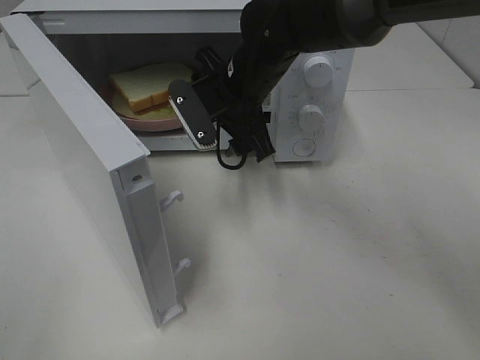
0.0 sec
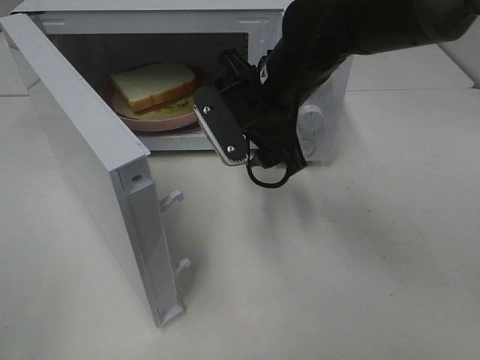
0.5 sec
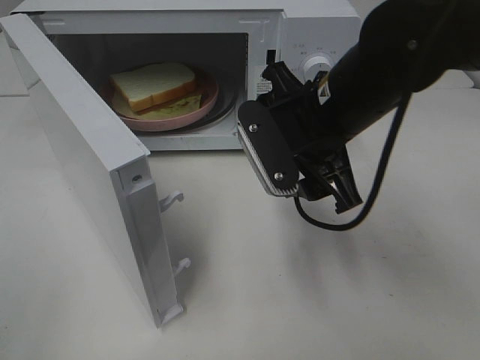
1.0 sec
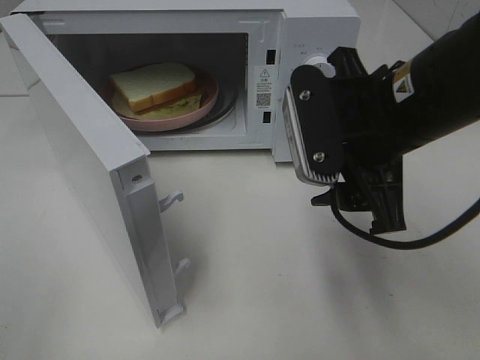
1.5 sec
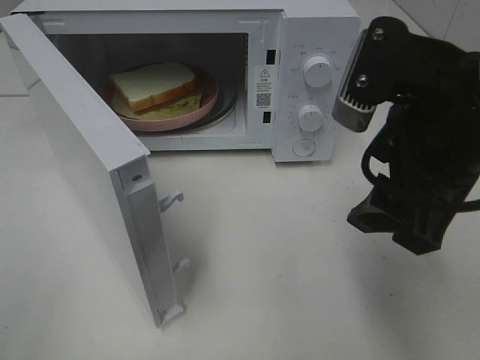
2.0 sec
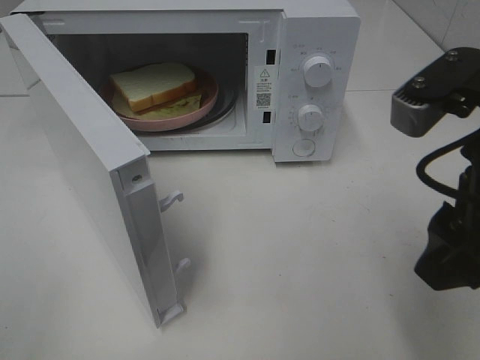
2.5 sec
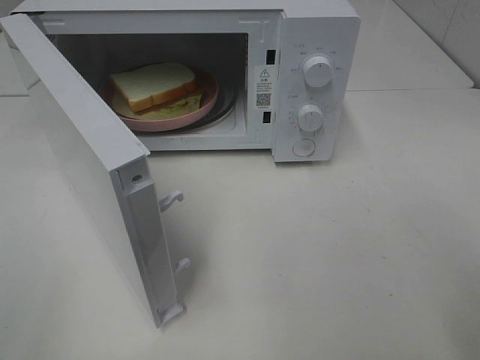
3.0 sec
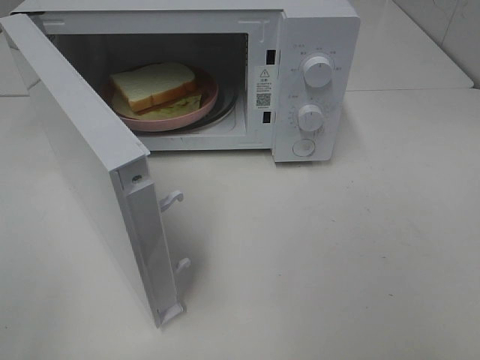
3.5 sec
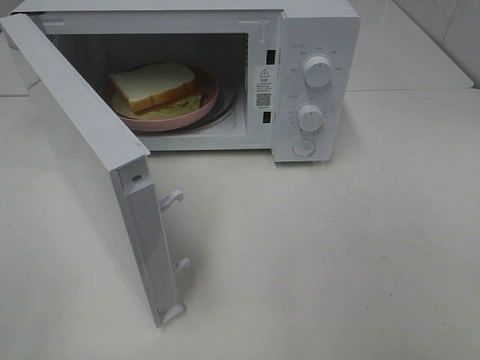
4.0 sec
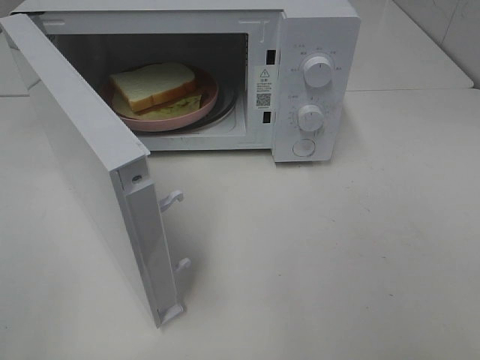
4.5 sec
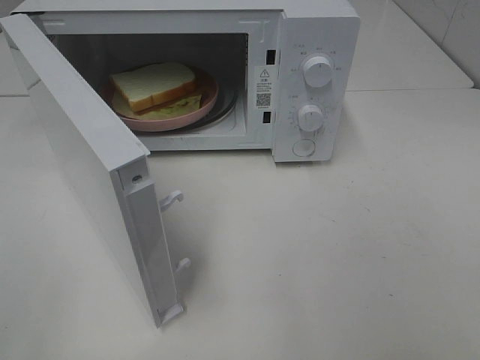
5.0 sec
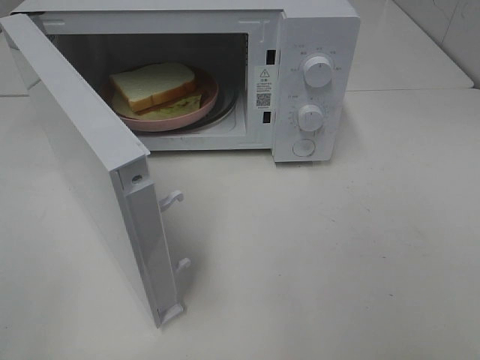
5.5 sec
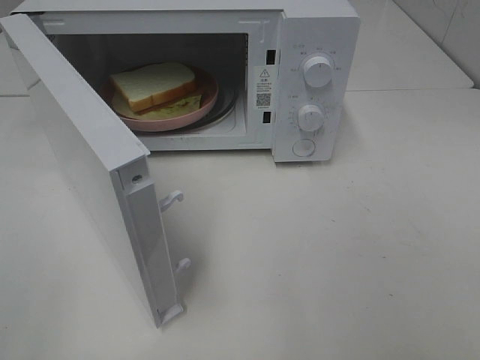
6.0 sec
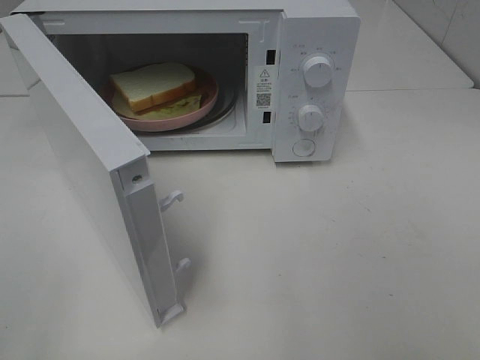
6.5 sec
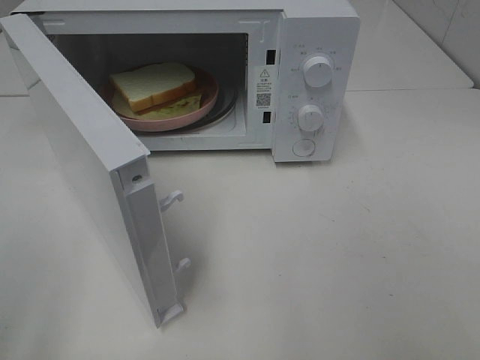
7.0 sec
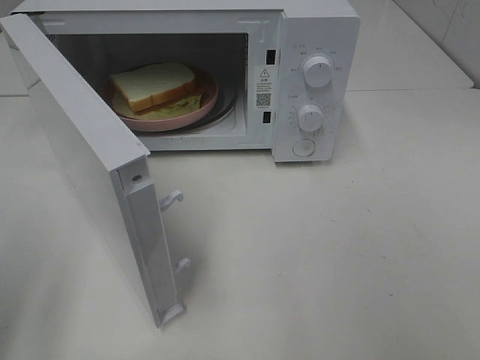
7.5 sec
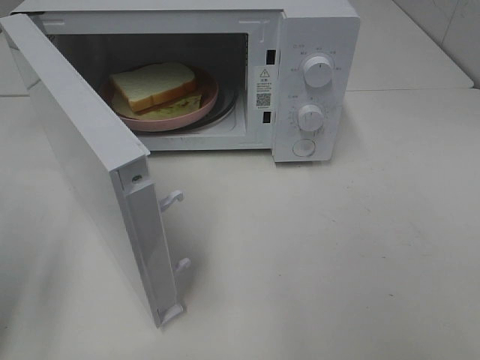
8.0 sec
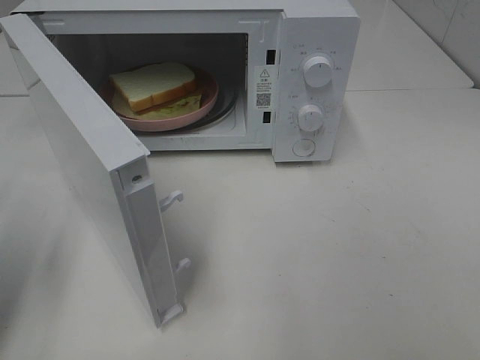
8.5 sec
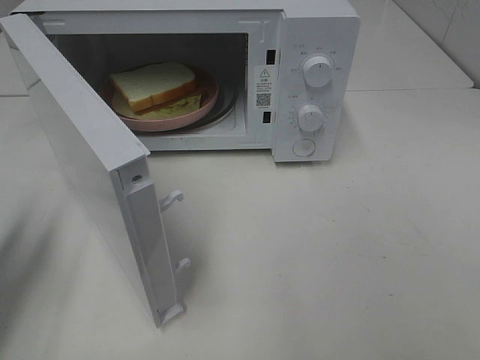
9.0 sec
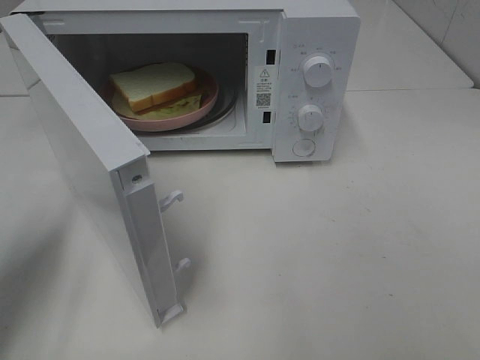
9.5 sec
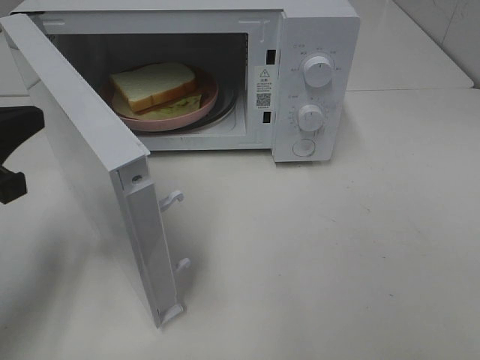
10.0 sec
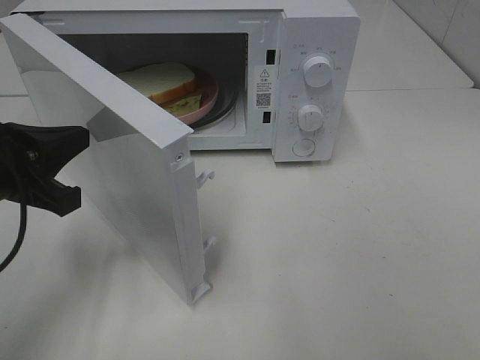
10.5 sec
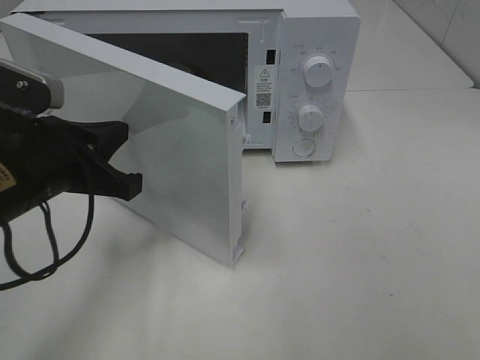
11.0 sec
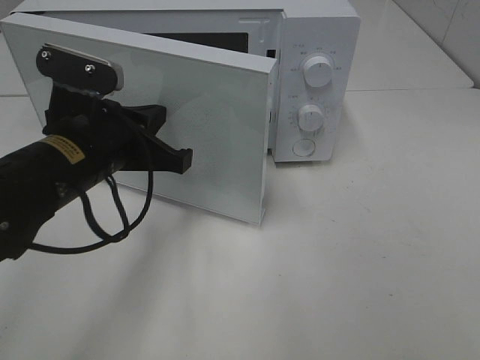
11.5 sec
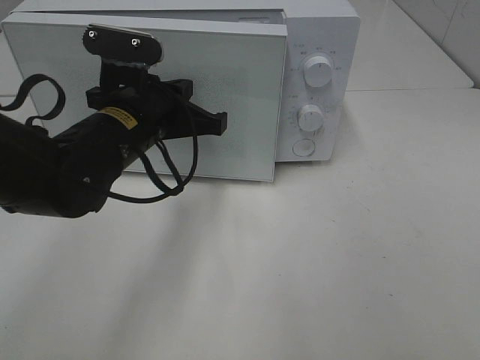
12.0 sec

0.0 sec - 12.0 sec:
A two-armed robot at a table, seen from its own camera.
Task of the whole recording: Heat Sandwich.
0.0 sec - 2.0 sec: The right gripper moves backward, to the right and upward, about 25 cm.
2.0 sec - 4.0 sec: The right gripper is displaced backward and to the right by about 20 cm.
6.0 sec - 8.0 sec: The left gripper travels forward by roughly 15 cm.
8.0 sec - 10.0 sec: The left gripper moves forward and to the right, roughly 10 cm, and closes up.
10.0 sec - 12.0 sec: The left gripper is displaced to the right and forward by some 20 cm.

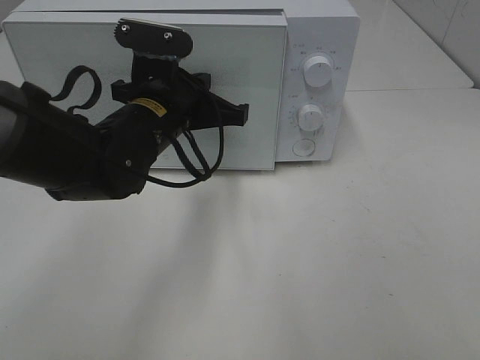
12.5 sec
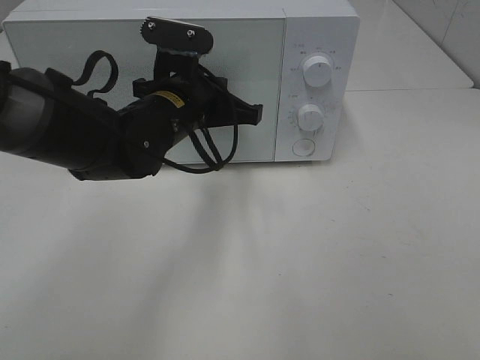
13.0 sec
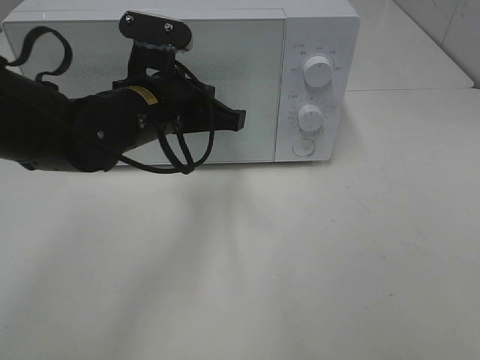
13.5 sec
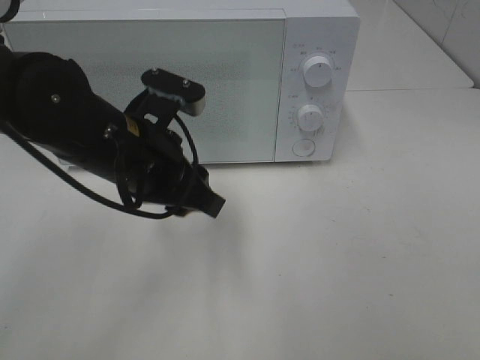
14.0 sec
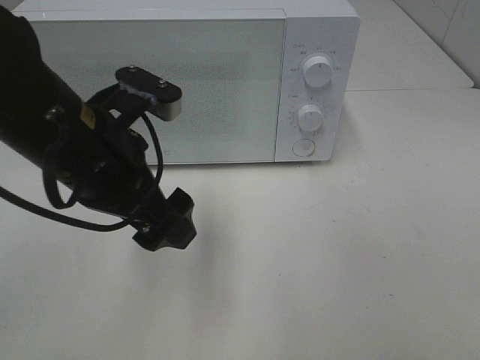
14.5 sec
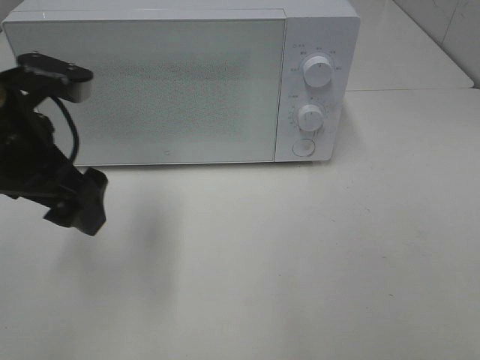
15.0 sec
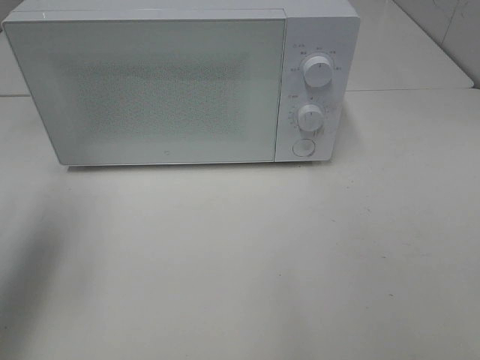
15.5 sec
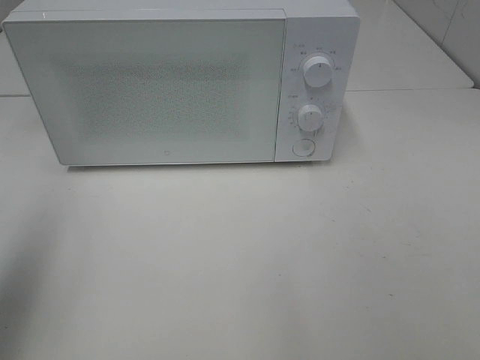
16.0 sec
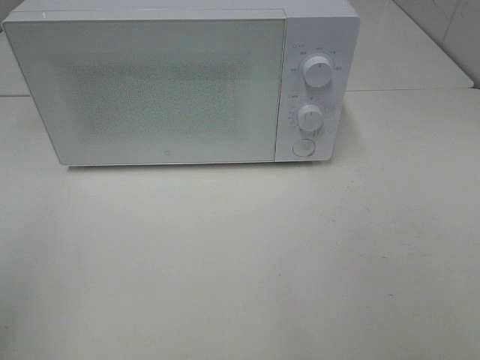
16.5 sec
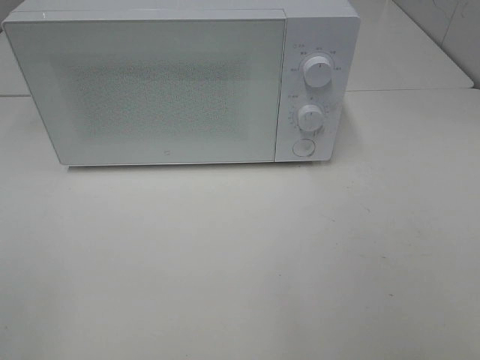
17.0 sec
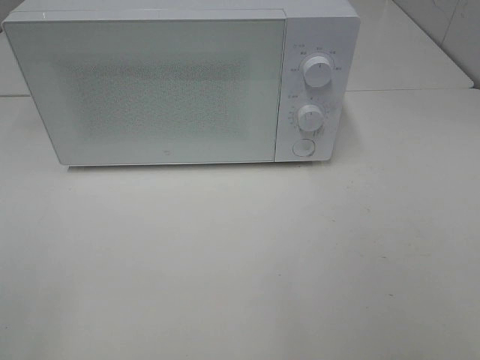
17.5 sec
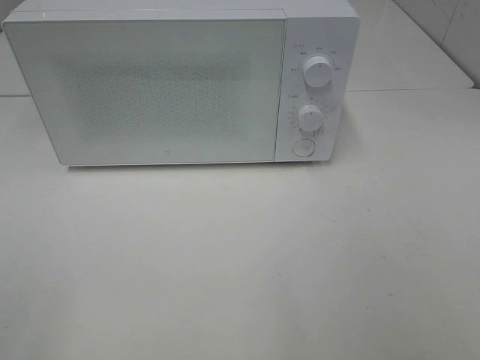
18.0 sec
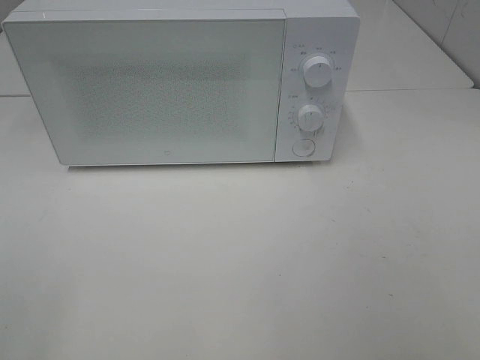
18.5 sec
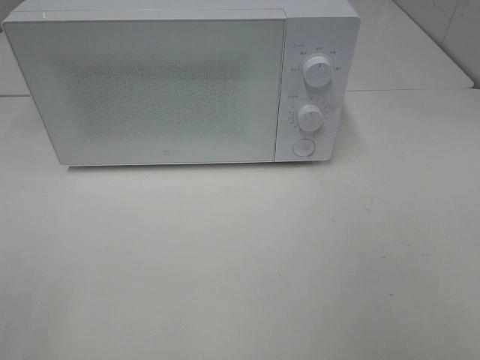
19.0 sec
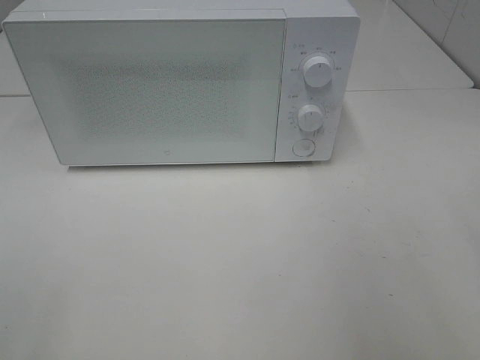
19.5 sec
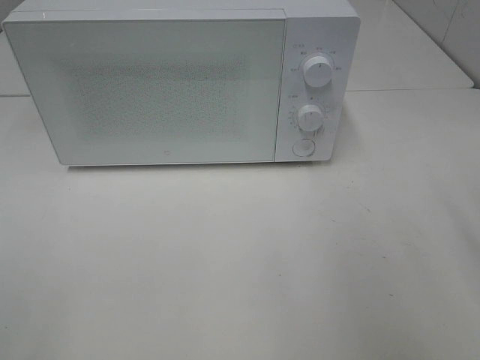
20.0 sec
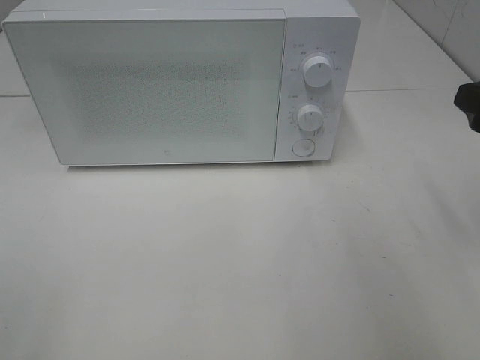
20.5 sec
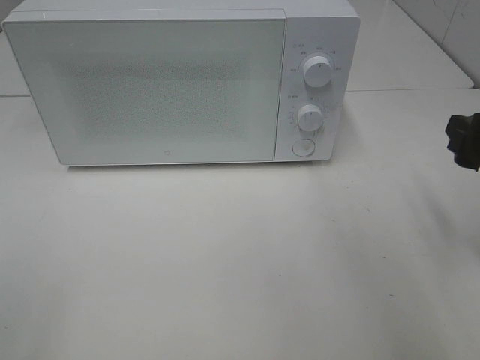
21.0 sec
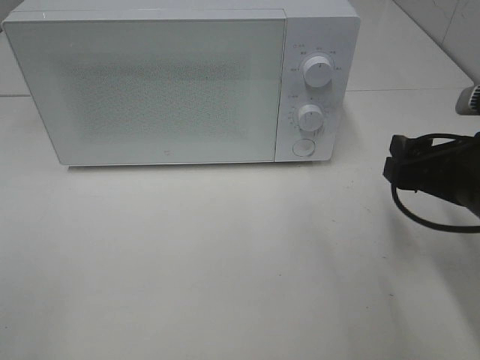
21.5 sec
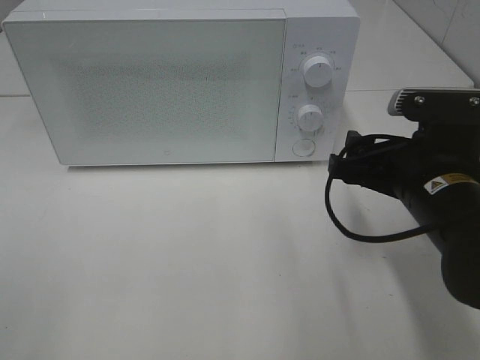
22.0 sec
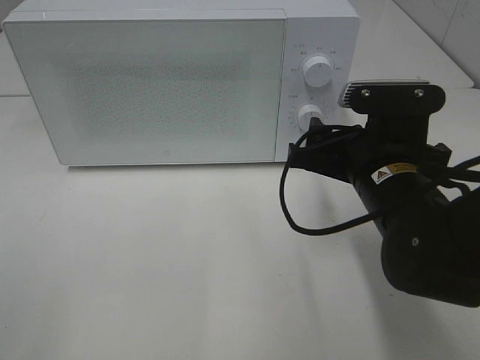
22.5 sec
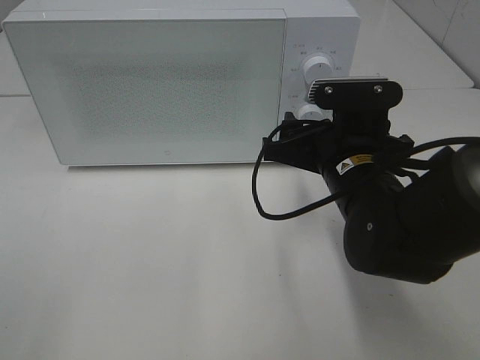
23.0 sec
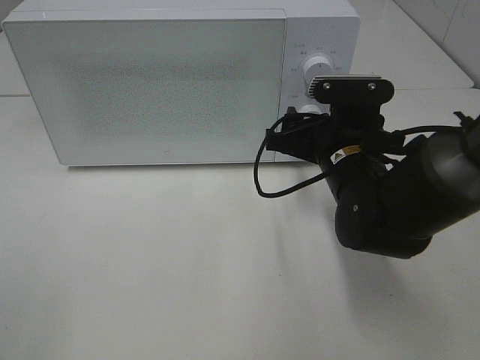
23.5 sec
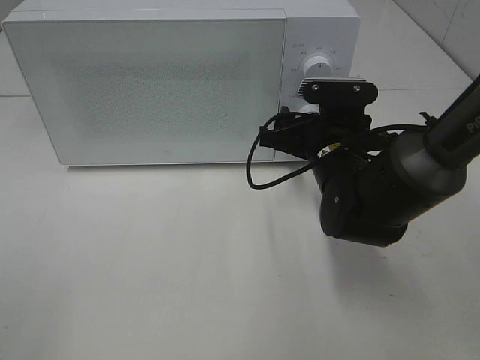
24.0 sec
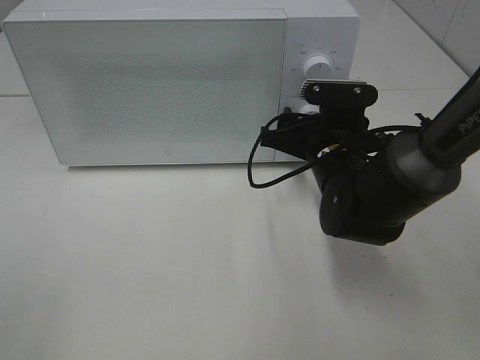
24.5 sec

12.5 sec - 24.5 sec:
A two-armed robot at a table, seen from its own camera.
Task of the whole recording: Heat Sandwich.
12.5 sec - 14.5 sec: The left gripper is displaced backward by approximately 10 cm, and opens up.
14.5 sec - 16.5 sec: The left gripper goes some 30 cm to the left, backward and upward.
20.5 sec - 22.5 sec: The right gripper shifts roughly 15 cm to the left and downward.
22.5 sec - 24.5 sec: The right gripper heads forward, covering approximately 10 cm.

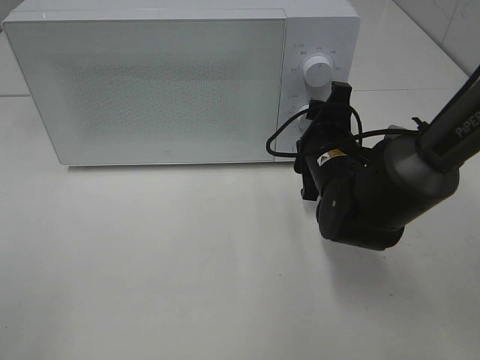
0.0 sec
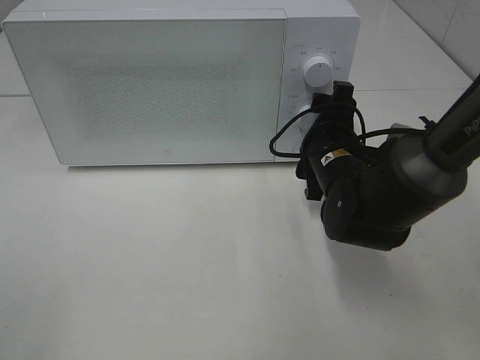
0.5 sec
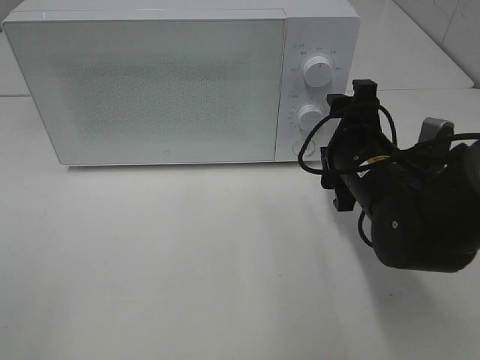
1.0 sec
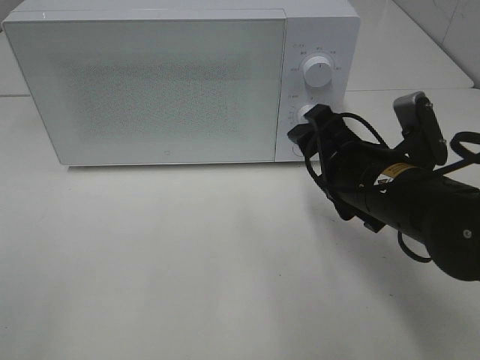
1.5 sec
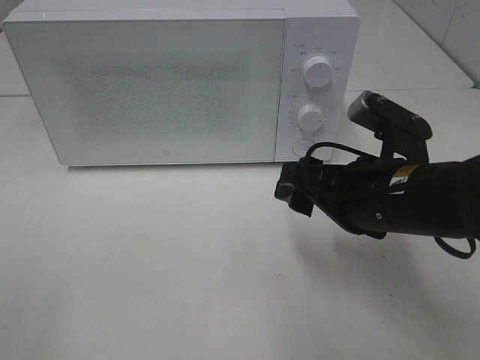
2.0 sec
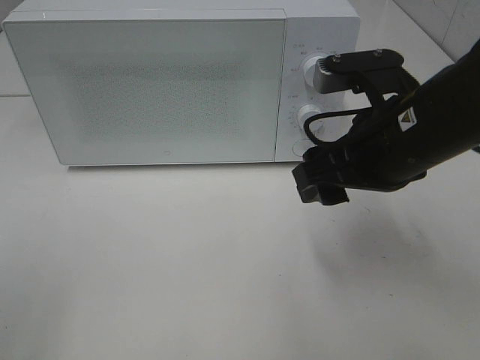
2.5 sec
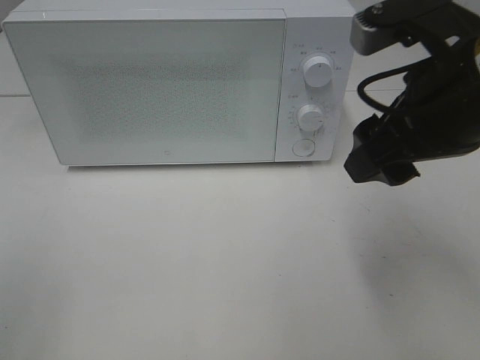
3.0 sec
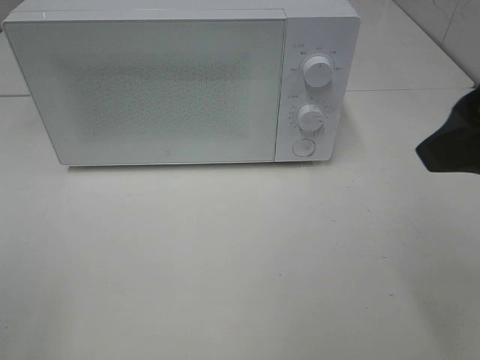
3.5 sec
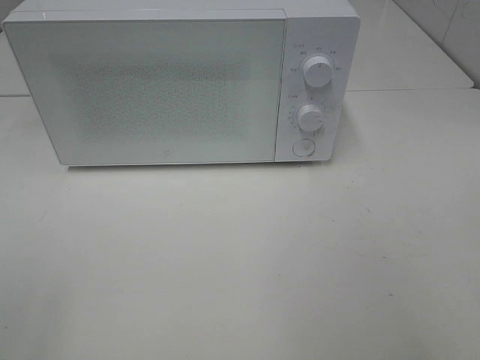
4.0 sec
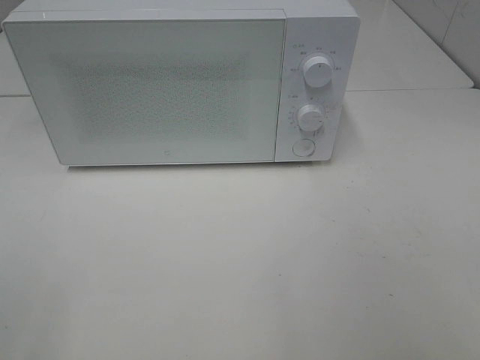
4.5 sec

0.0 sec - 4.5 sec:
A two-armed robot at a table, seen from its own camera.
Task of the whole recording: Heat Sandwich.
0.0 sec - 2.0 sec: The right gripper heads backward and upward, covering approximately 10 cm.
2.0 sec - 4.5 sec: The right gripper is displaced backward, to the right and upward by approximately 30 cm.
